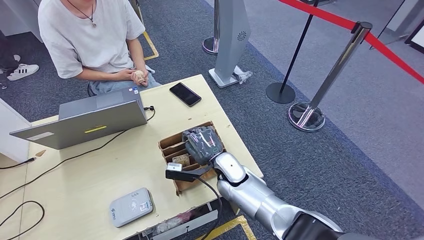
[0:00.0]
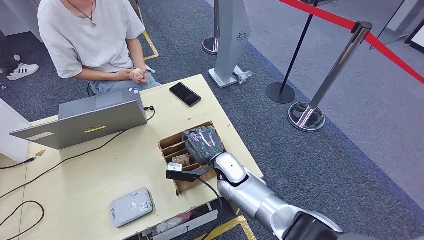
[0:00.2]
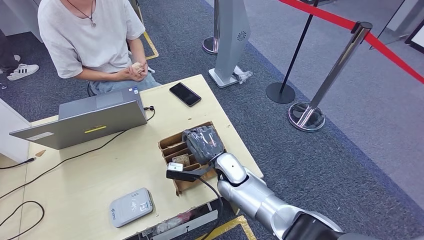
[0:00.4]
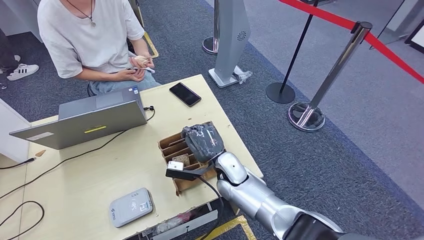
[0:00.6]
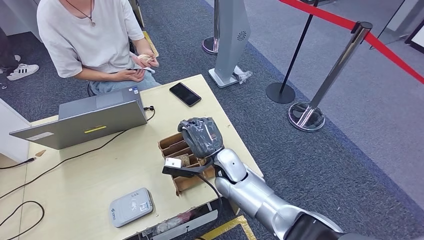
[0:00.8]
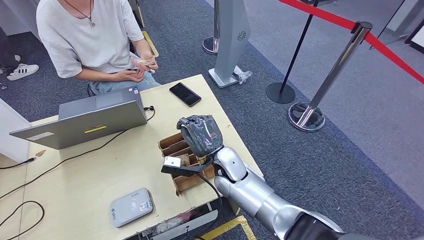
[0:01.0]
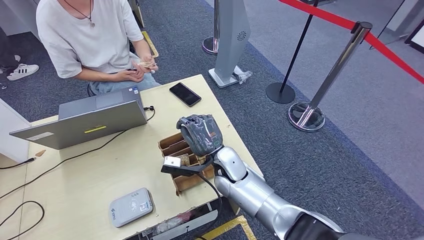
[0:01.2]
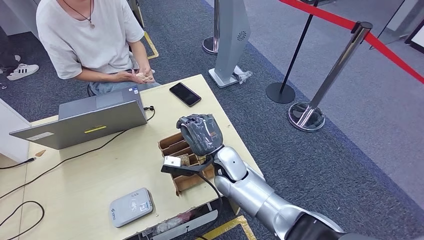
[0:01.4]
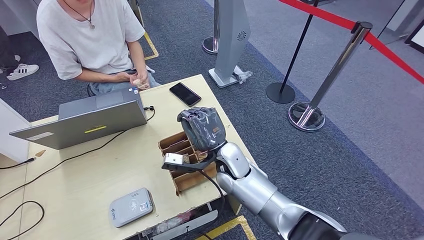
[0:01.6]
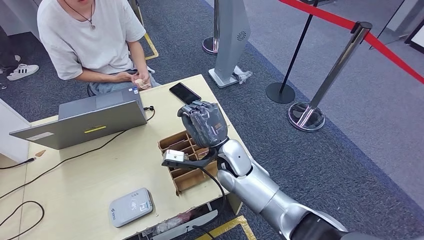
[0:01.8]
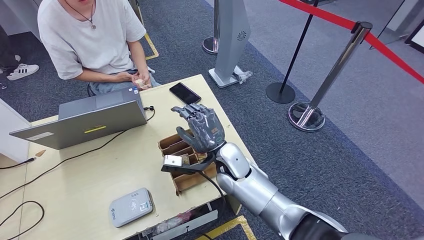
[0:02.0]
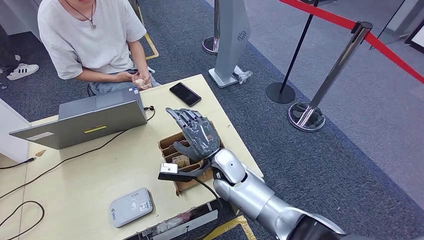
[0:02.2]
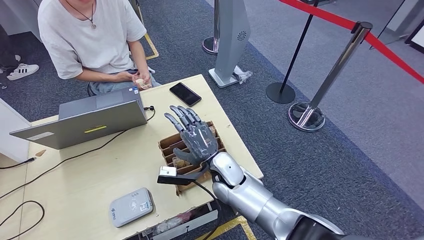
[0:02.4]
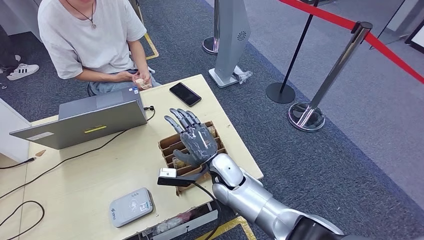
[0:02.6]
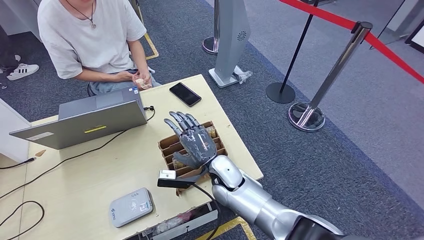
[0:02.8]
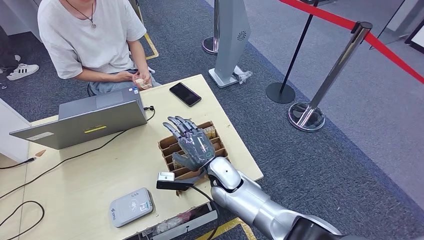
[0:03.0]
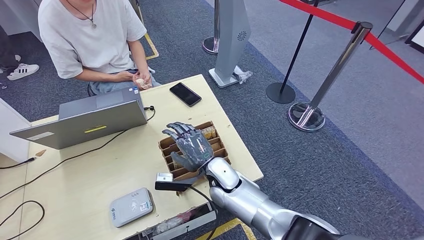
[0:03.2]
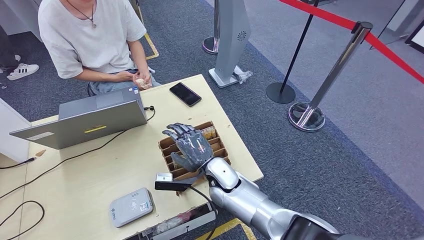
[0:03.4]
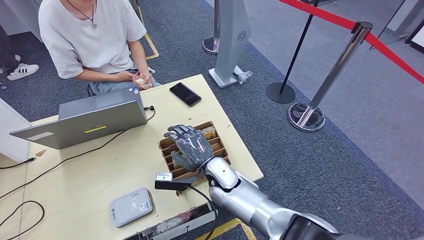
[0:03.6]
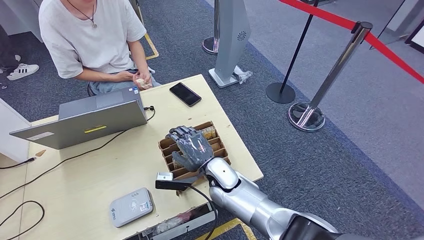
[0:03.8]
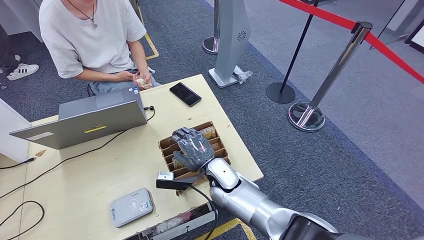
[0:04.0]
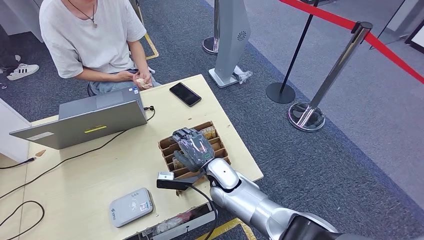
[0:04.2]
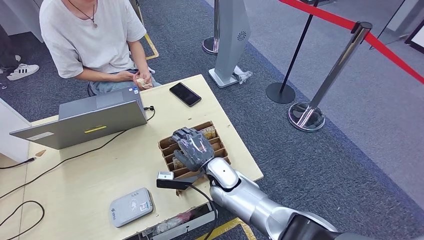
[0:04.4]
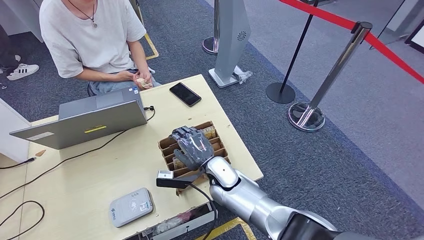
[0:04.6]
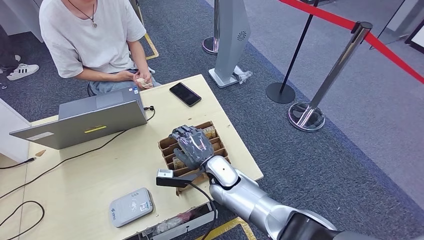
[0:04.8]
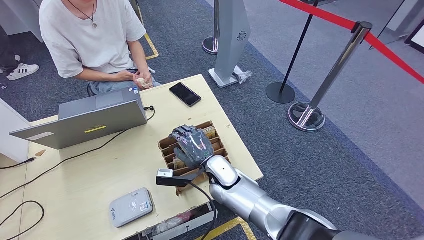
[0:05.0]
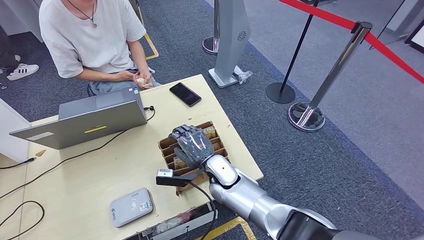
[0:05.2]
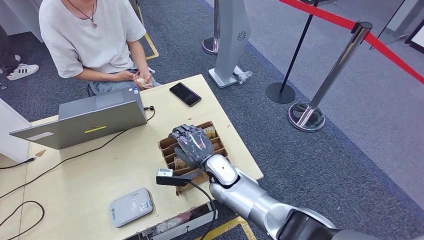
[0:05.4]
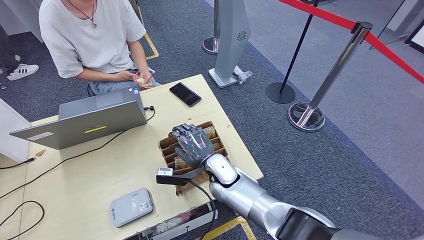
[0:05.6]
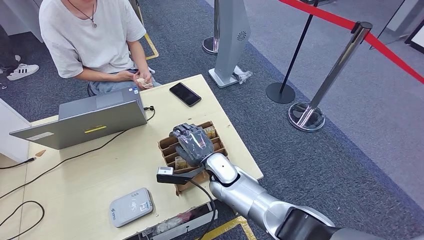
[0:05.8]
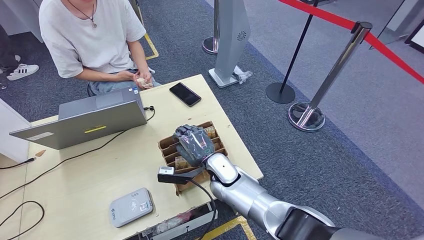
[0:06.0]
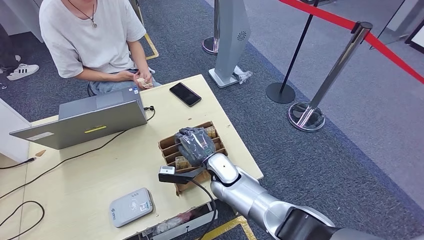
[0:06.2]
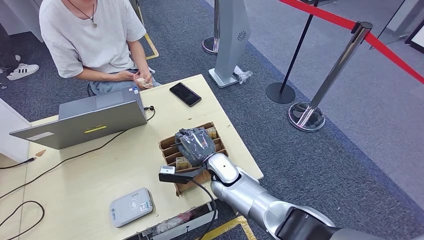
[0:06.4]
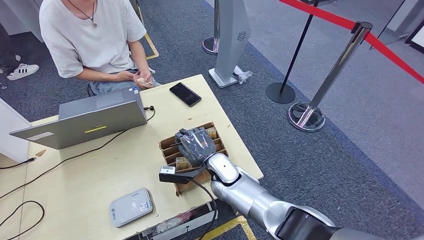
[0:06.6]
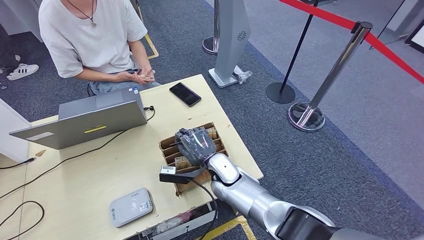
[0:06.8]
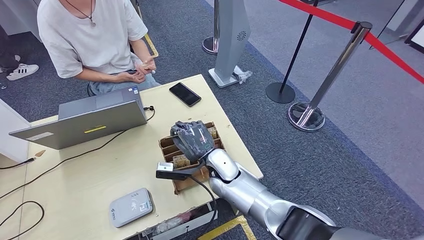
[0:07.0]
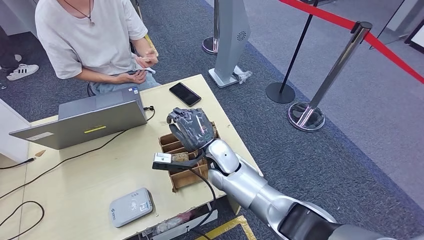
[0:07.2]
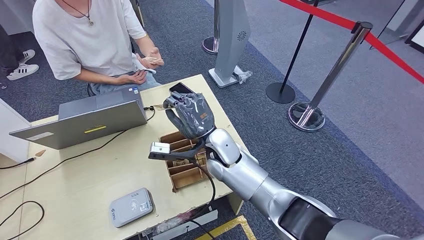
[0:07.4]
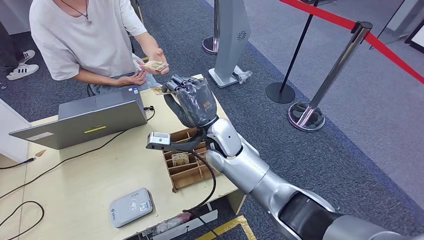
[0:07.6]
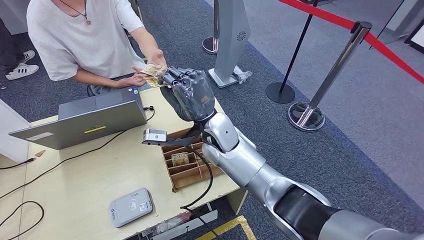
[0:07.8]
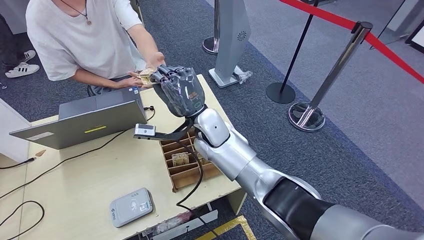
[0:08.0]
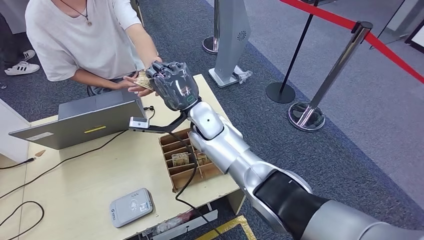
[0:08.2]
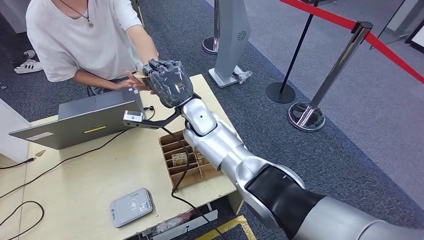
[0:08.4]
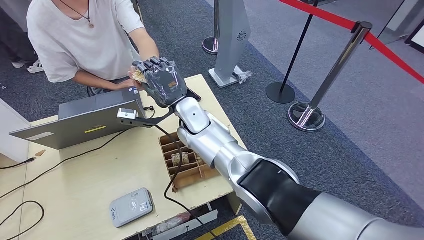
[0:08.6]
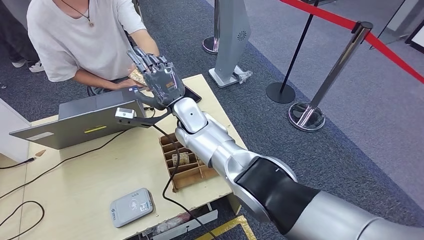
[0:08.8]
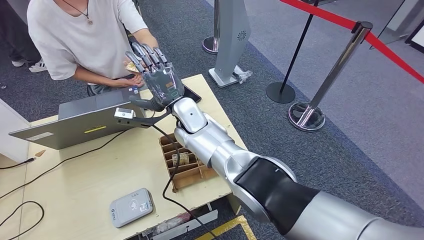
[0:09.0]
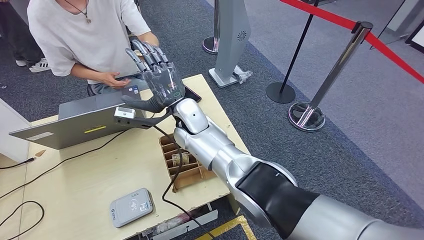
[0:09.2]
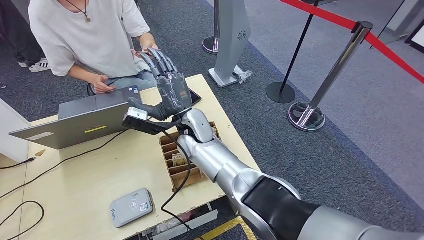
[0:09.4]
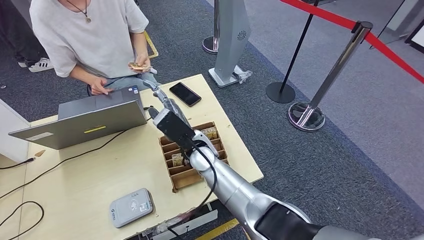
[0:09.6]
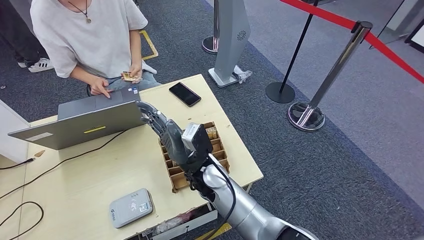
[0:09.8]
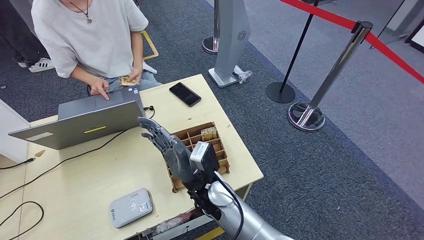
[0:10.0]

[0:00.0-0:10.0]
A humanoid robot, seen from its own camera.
Step, 0:00.0 to 0:07.2: Pick up the room key from the key card box.
Step, 0:07.4 to 0:10.0: Hand the room key to the person.
0:00.0 to 0:01.4: The hands move only a little.
0:01.4 to 0:05.8: The hands stay close to where they were, moving slightly.
0:05.8 to 0:07.2: The right hand heads upward, covering about 5 cm.
0:07.2 to 0:08.6: The right hand shifts some 15 cm forward and upward.
